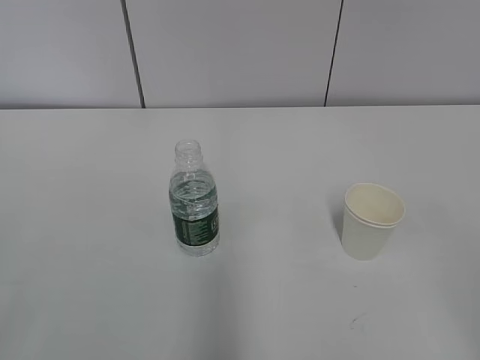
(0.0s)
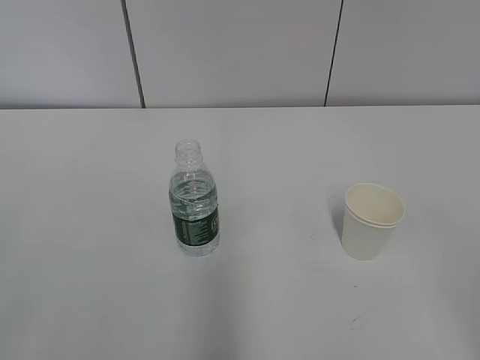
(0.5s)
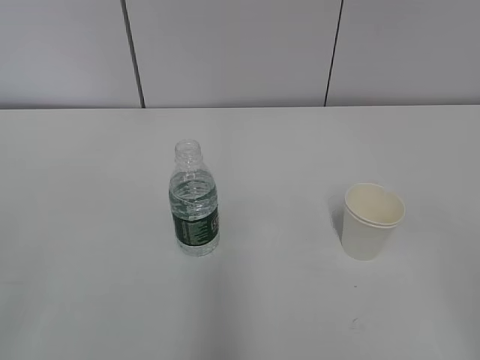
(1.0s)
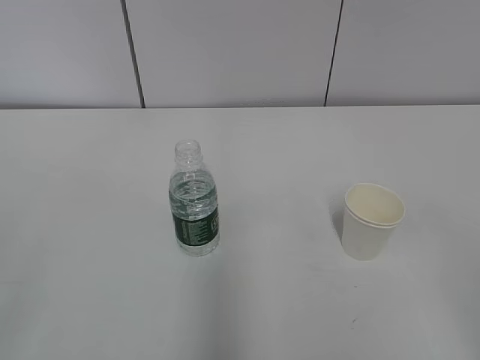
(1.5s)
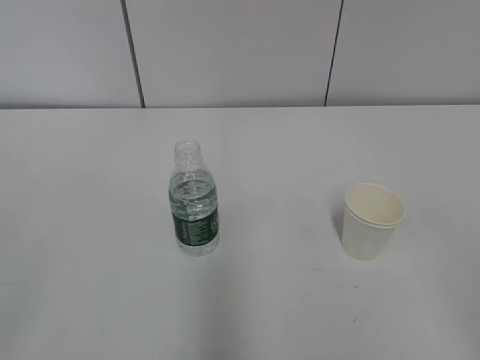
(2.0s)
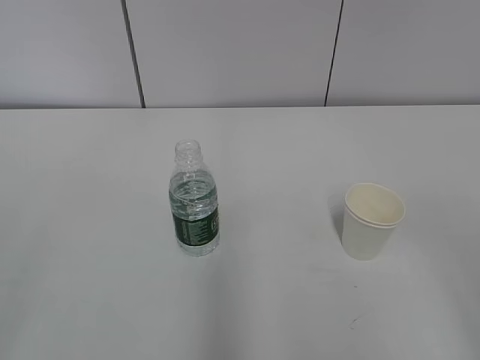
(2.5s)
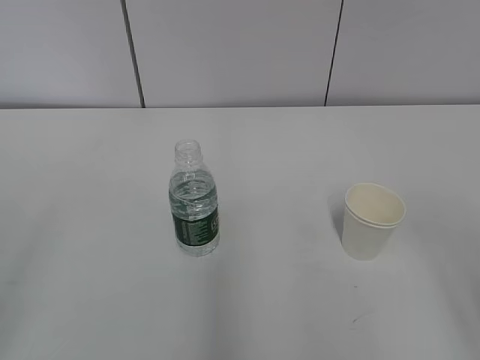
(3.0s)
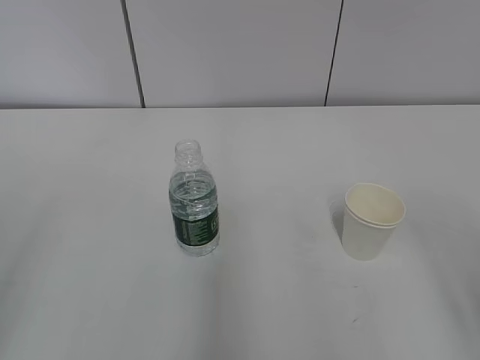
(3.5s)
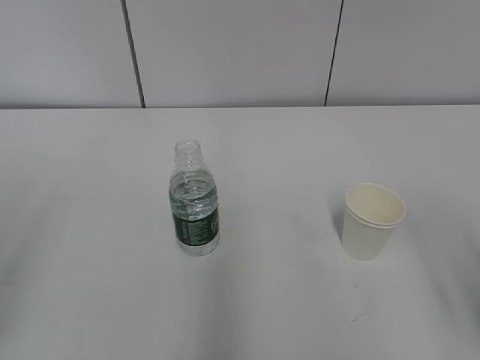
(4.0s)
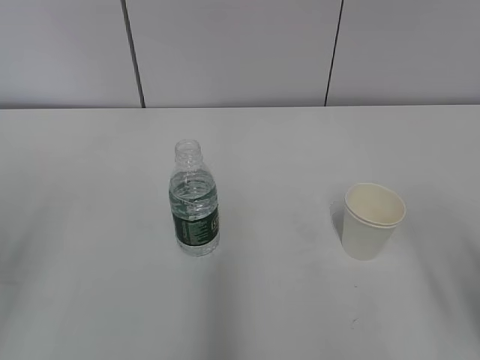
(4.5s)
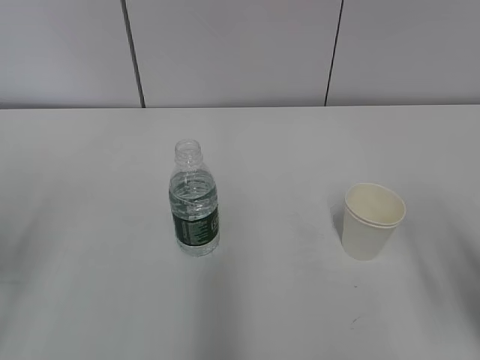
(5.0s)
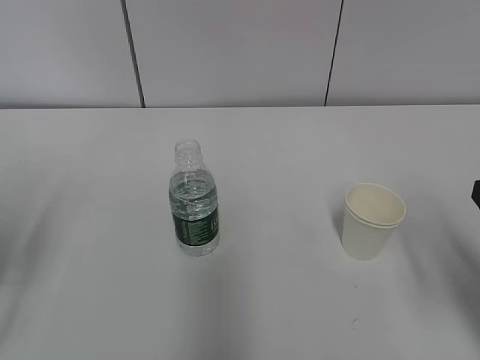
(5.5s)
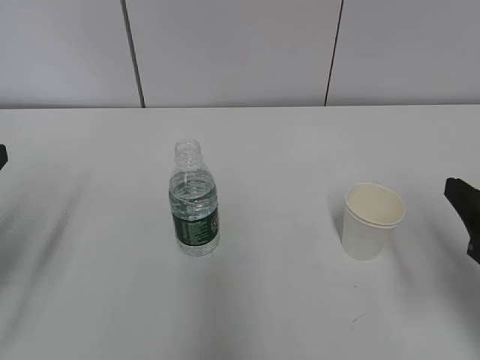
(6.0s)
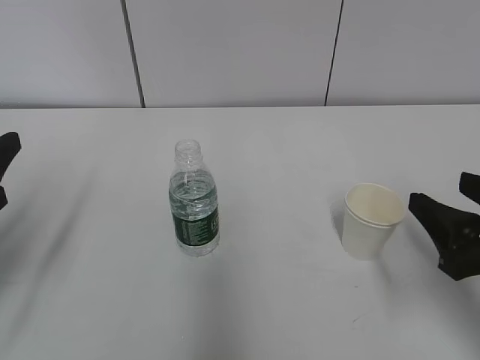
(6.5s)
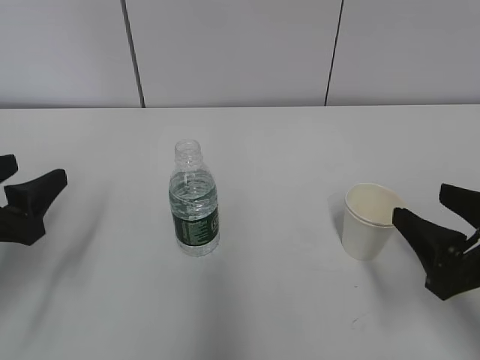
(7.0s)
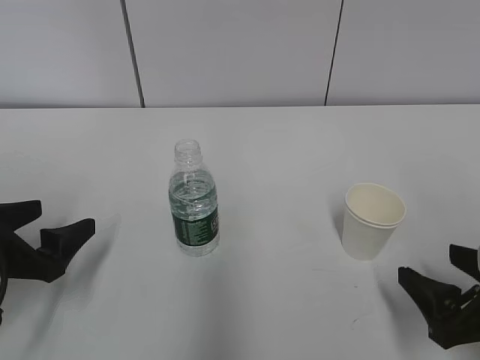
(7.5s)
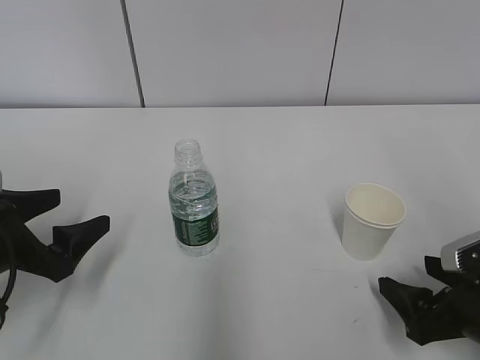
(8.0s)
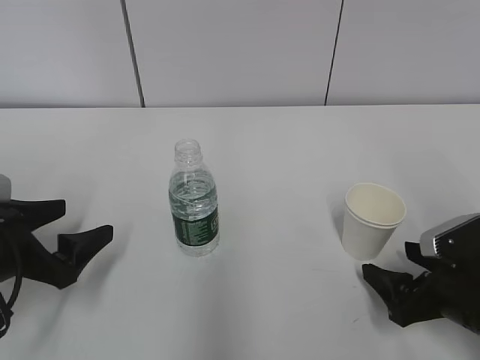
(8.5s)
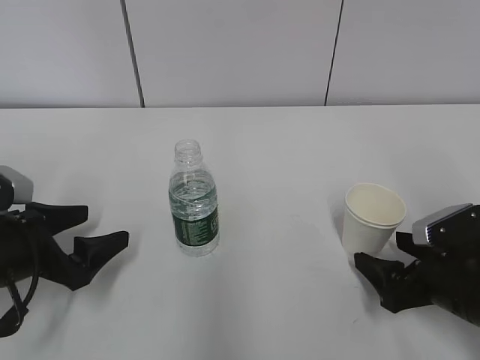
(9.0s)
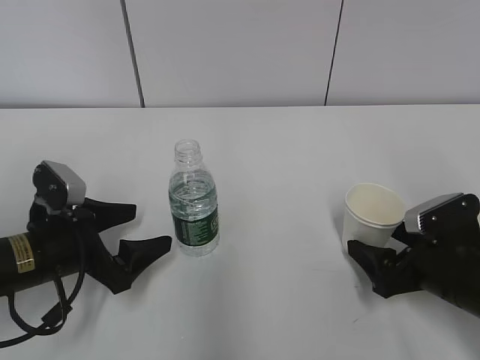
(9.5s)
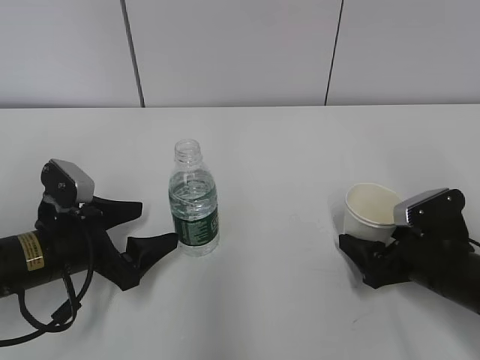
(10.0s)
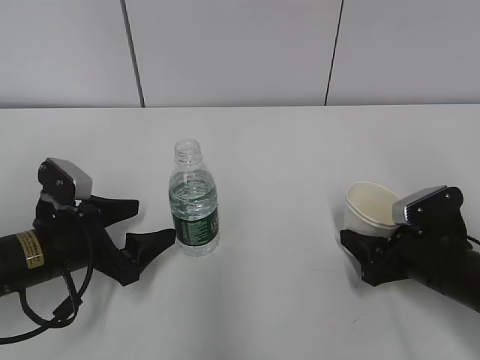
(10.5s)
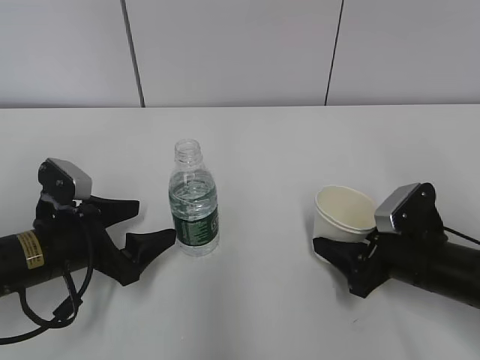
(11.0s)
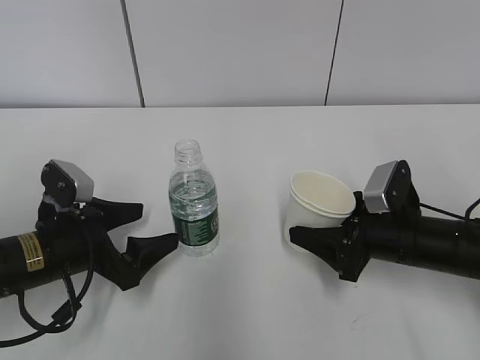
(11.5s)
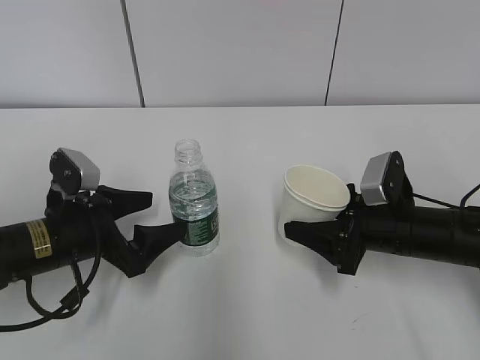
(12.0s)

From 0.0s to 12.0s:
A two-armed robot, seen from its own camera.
Step, from 0.0s to 8.5s: Grab the paper cup with the right hand.
Step, from 9.0s to 11.0s: Grab the water bottle with the left hand.
From 4.0s to 6.0s: The right gripper moves forward, roughly 10 cm.
From 6.0s to 8.0s: The grippers both shift downward by approximately 10 cm. The right gripper opens. Meanwhile the left gripper opens up.
From 8.0s to 10.0s: The left gripper travels to the right by approximately 5 cm. Meanwhile the right gripper moves forward, about 10 cm.
From 10.0s to 12.0s: The right gripper changes place by about 5 cm, and closes its fingers.

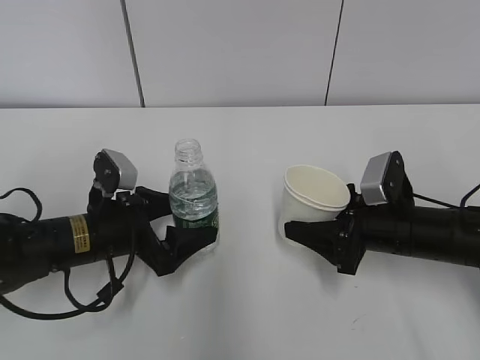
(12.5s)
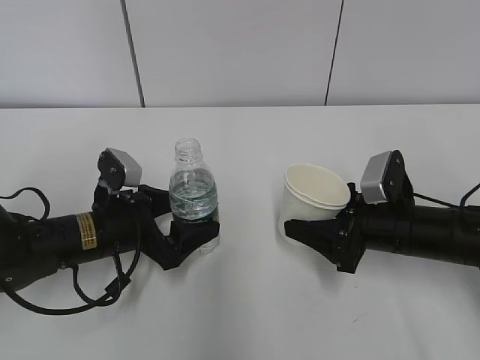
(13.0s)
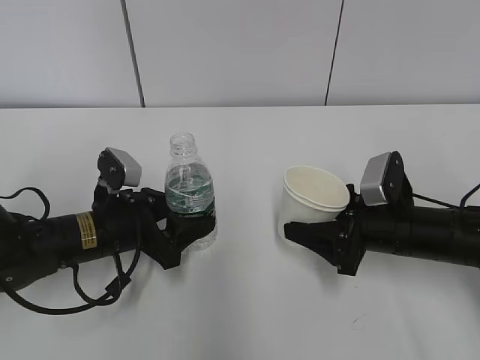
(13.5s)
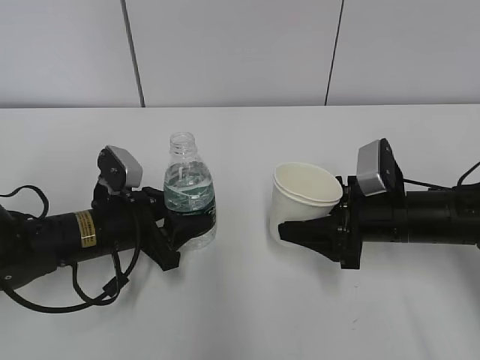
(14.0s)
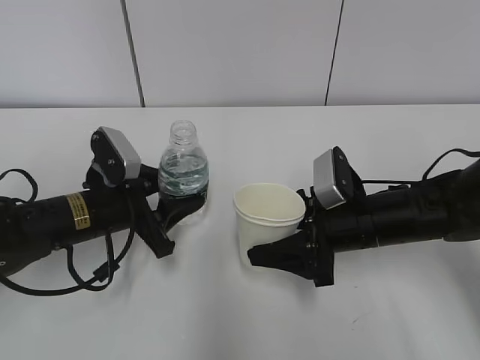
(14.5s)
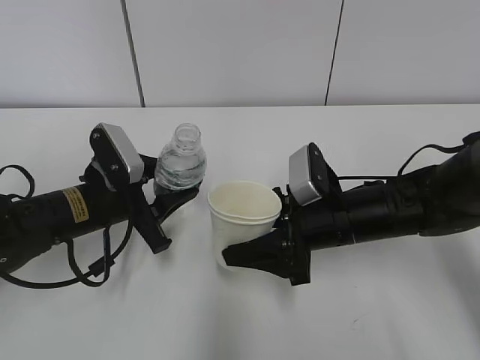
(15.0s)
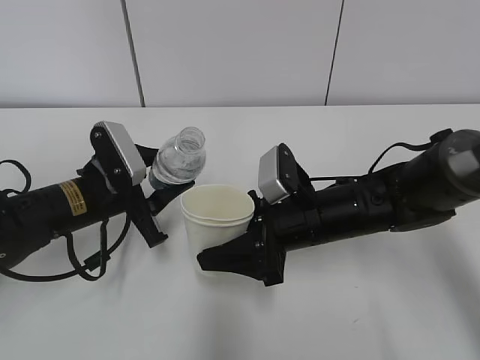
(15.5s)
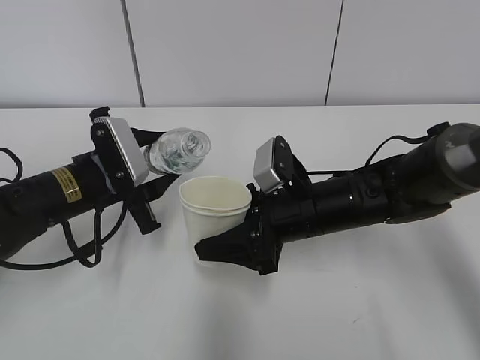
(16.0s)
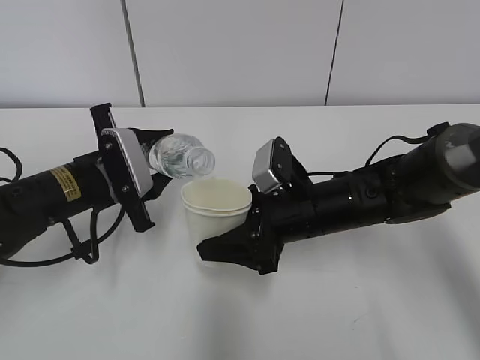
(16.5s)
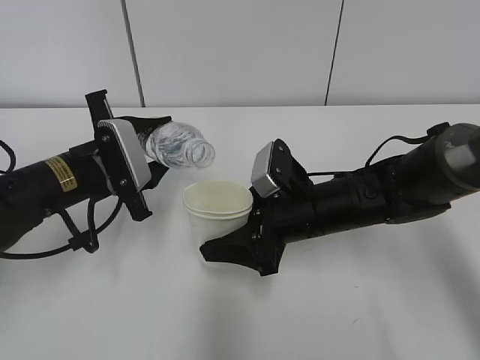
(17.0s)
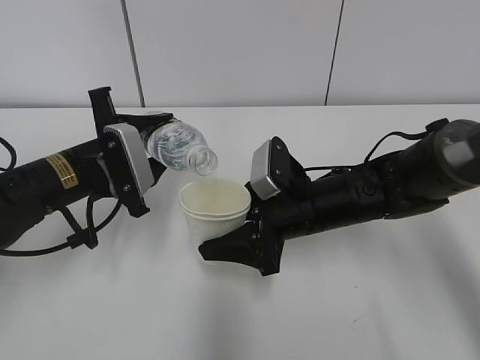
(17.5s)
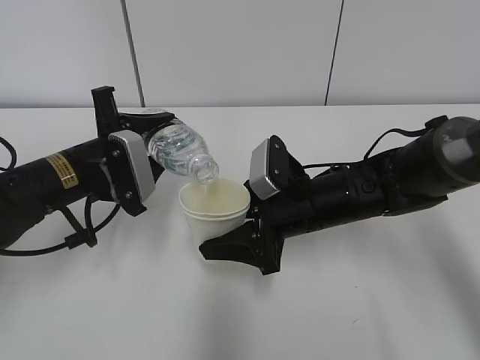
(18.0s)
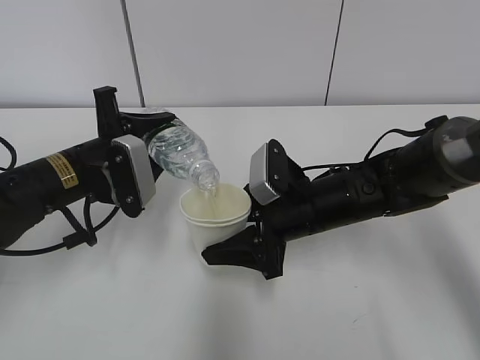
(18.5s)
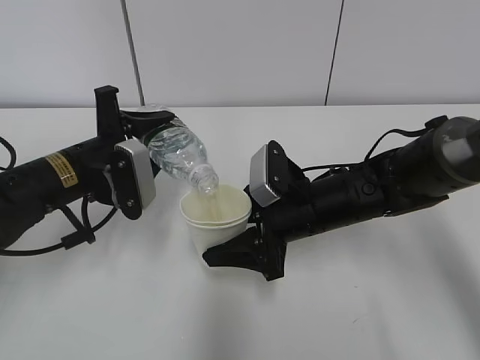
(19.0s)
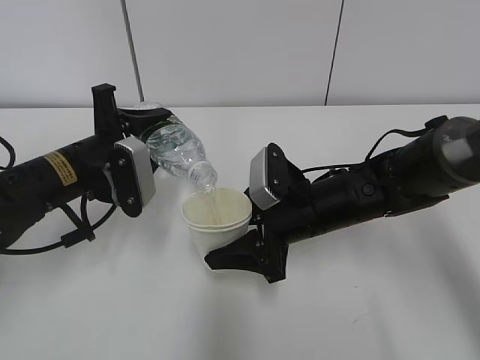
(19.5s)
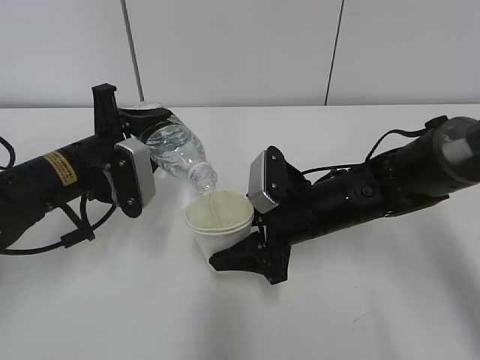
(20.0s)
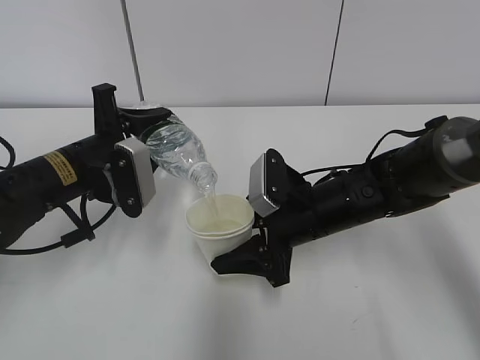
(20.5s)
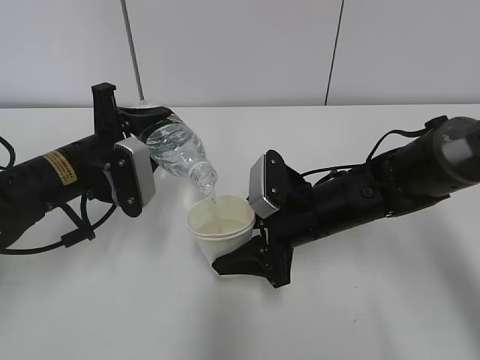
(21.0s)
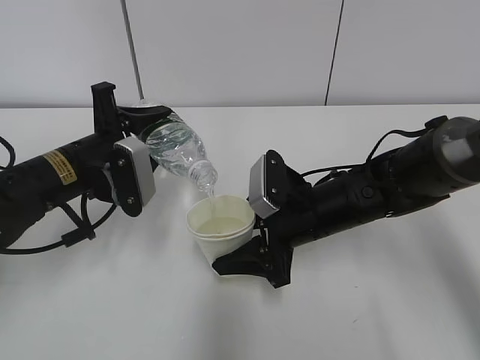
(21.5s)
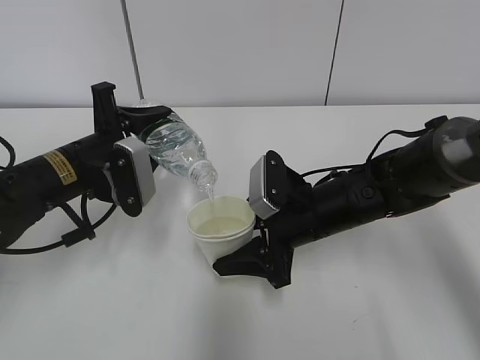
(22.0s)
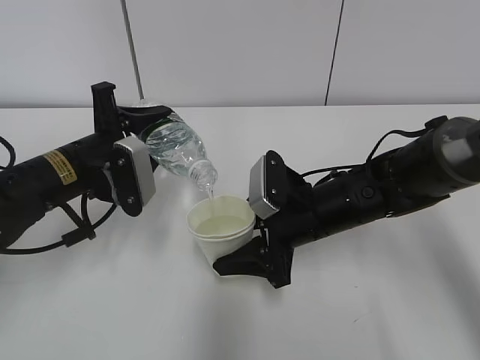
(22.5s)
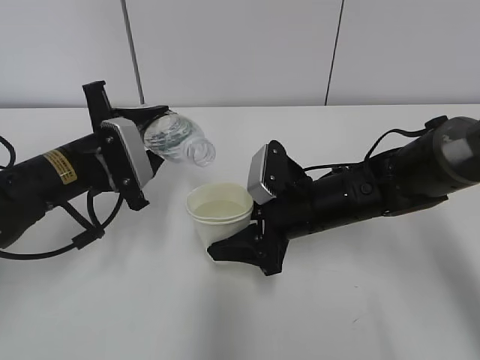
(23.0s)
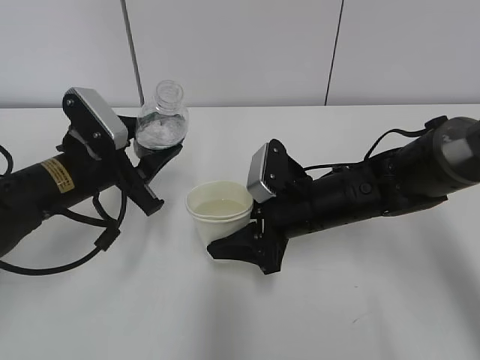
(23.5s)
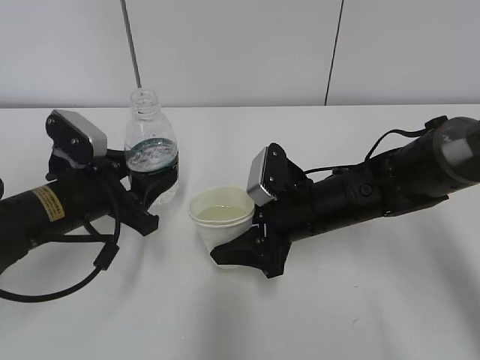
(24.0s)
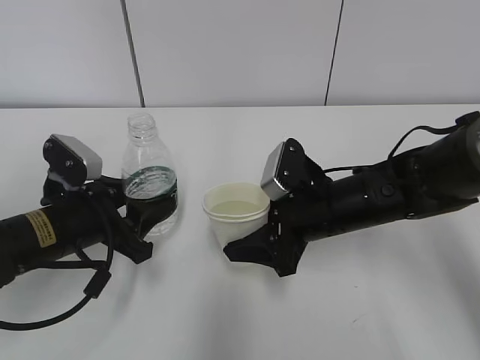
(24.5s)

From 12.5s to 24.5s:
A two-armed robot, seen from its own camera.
Step, from 12.5s to 14.5s: Lift the paper cup with the right hand.
Step, from 15.0s to 19.0s: Fill water with the right hand.
Step, from 15.0s to 19.0s: Pour water with the left hand.
Step, from 20.0s to 23.0s: Place the water bottle with the left hand.
From 12.5s to 14.5s: The left gripper closes its fingers.
From 14.5s to 16.5s: The right gripper is displaced to the left by about 5 cm.
From 18.5s to 20.5s: There are only small adjustments of the grippers.
From 20.5s to 22.5s: Both grippers stay put.
From 22.5s to 24.5s: The left gripper is displaced backward by approximately 5 cm.

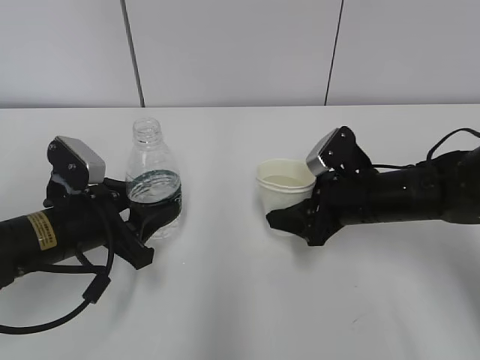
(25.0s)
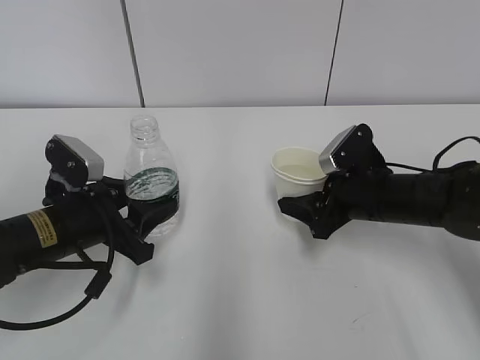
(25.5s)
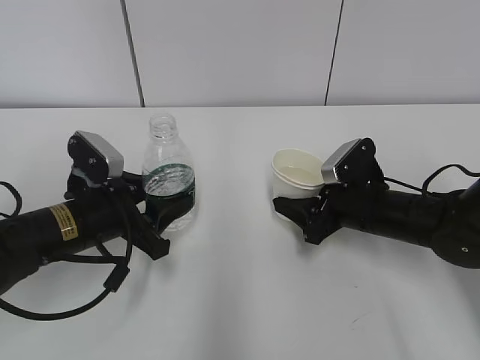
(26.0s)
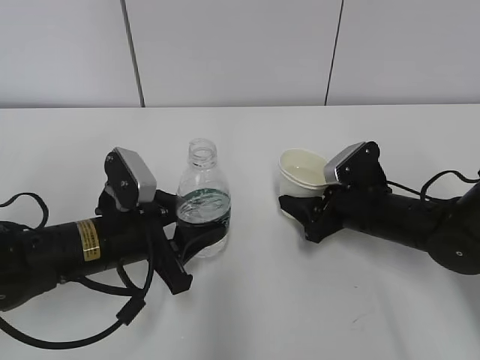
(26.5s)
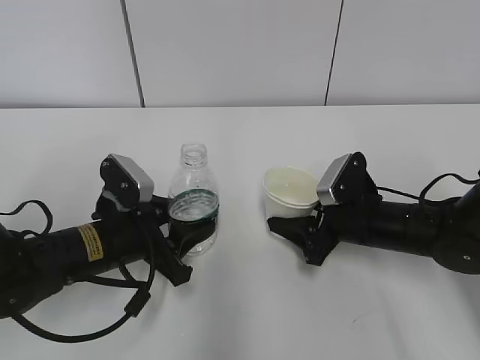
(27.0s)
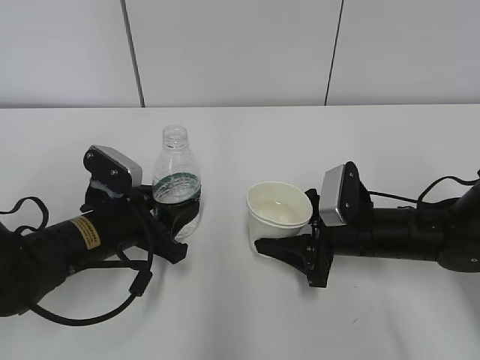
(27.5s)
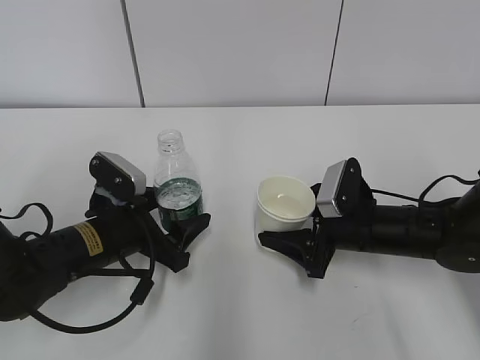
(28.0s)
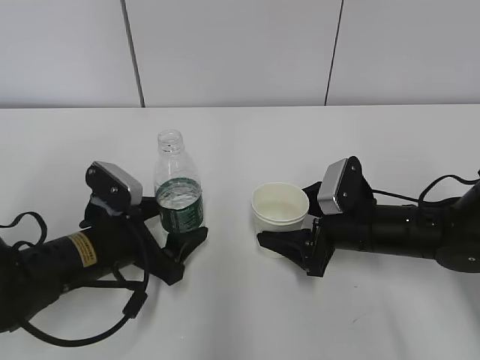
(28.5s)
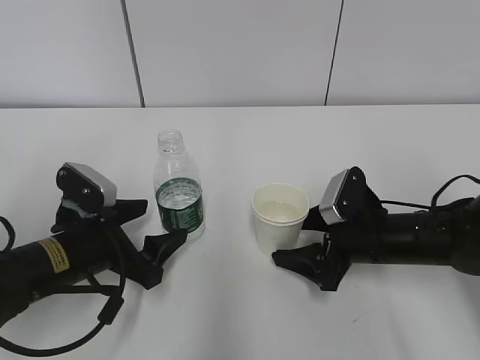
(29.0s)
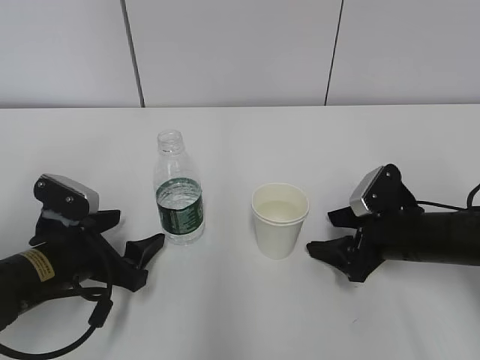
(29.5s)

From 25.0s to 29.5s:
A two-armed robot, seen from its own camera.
From 27.0s to 29.5s: The left gripper shifts roughly 5 cm to the left, and opens its fingers. The right gripper moves about 5 cm, and opens its fingers.
